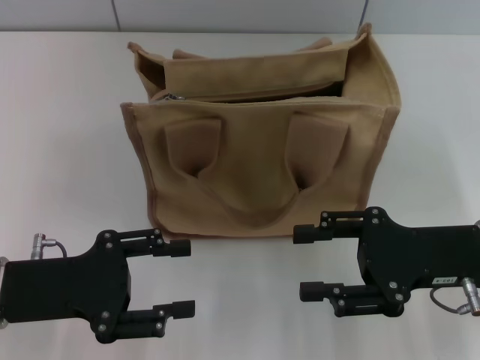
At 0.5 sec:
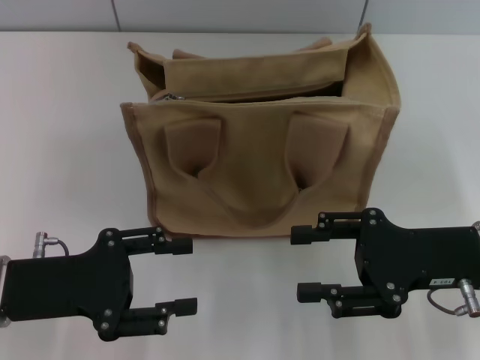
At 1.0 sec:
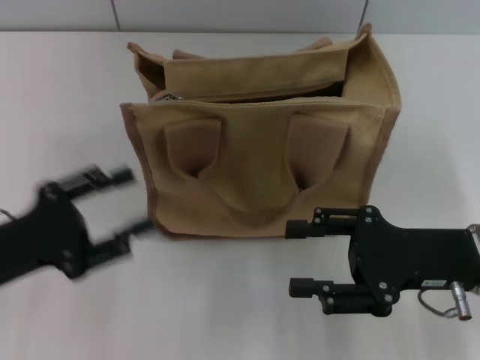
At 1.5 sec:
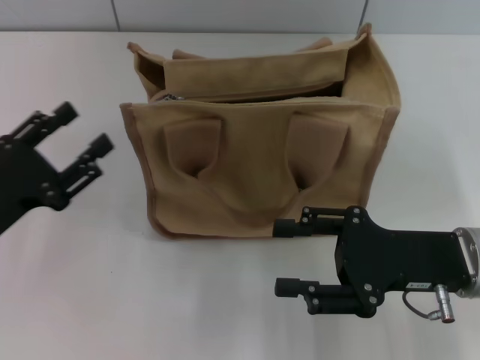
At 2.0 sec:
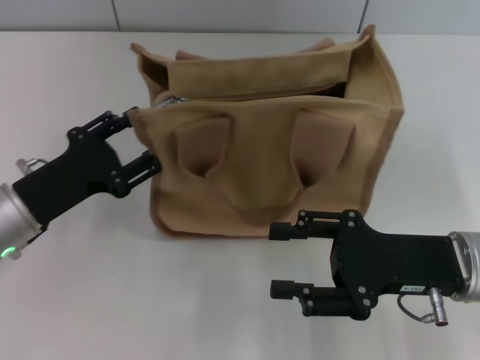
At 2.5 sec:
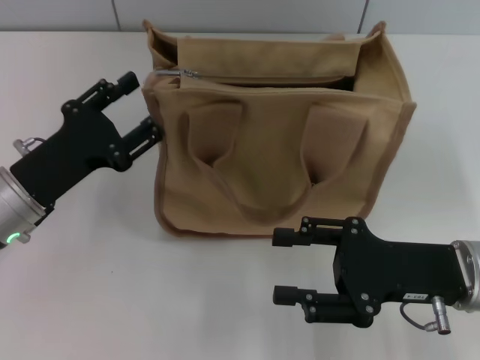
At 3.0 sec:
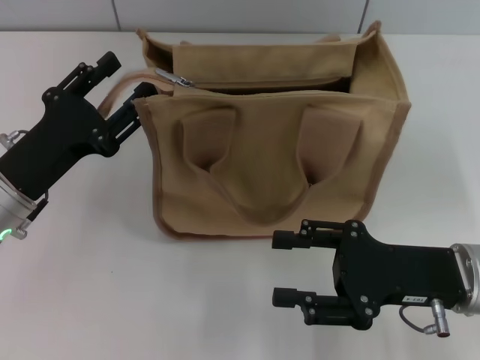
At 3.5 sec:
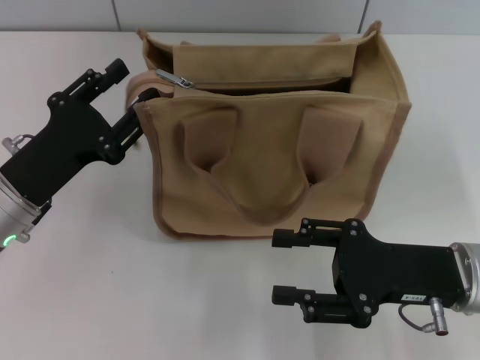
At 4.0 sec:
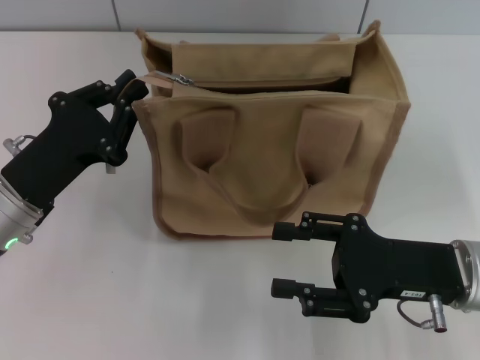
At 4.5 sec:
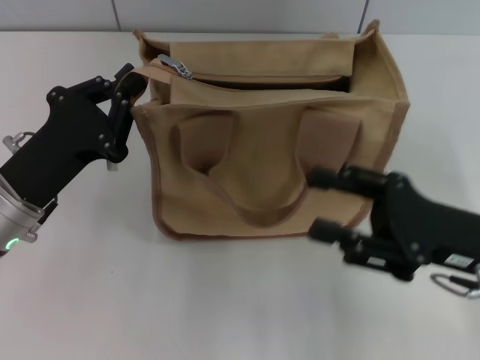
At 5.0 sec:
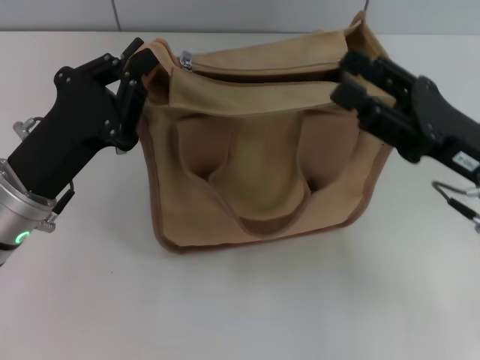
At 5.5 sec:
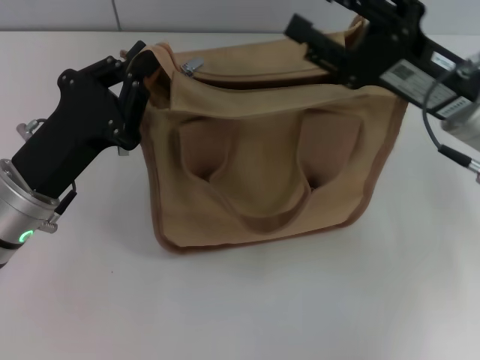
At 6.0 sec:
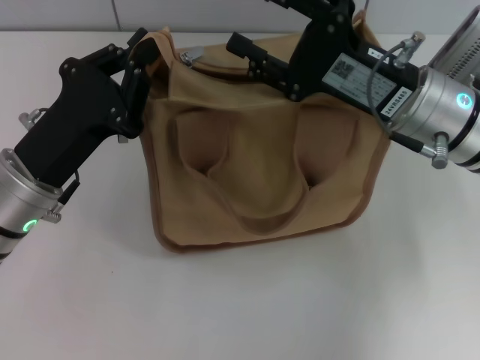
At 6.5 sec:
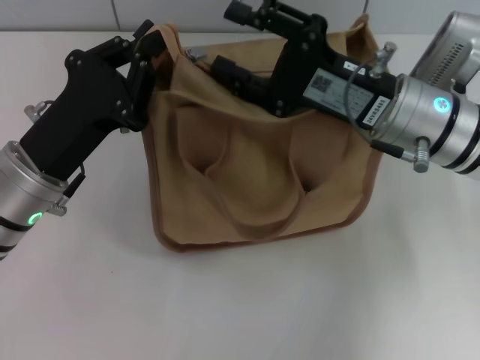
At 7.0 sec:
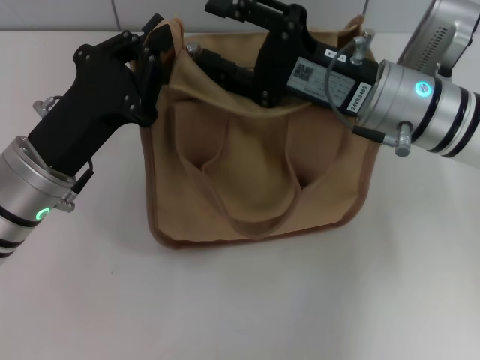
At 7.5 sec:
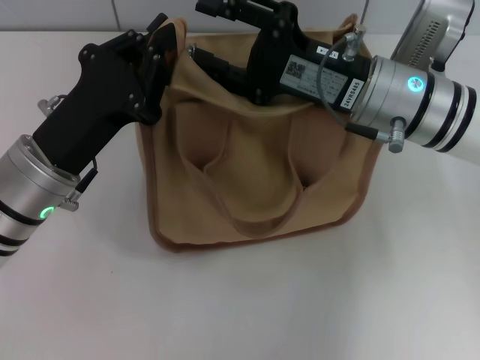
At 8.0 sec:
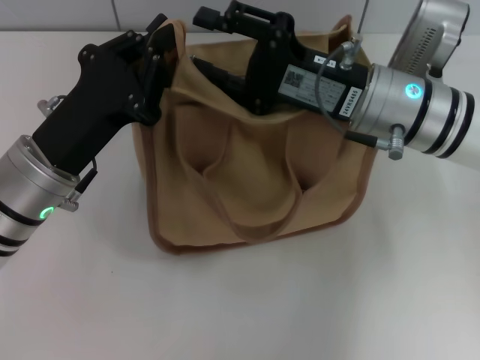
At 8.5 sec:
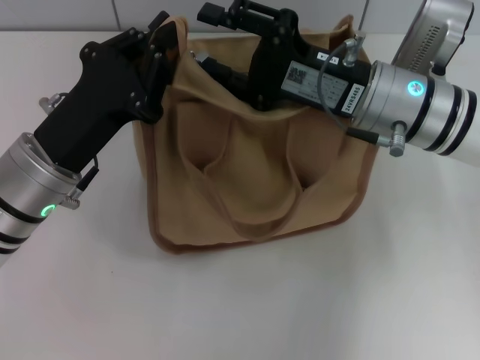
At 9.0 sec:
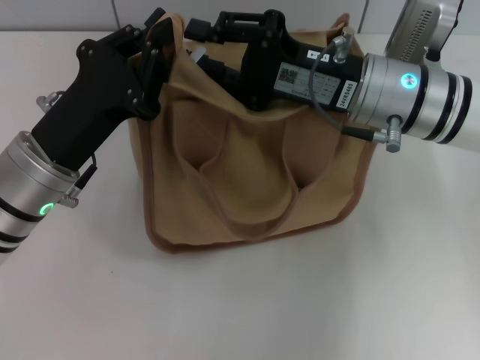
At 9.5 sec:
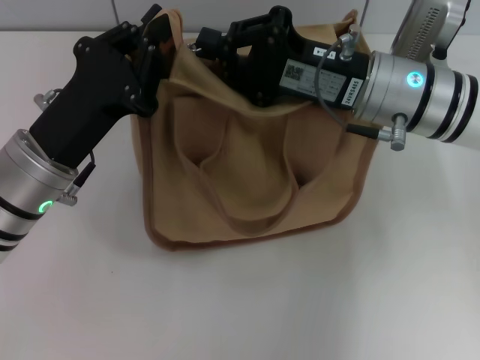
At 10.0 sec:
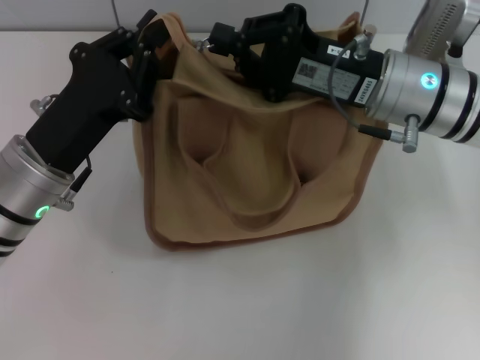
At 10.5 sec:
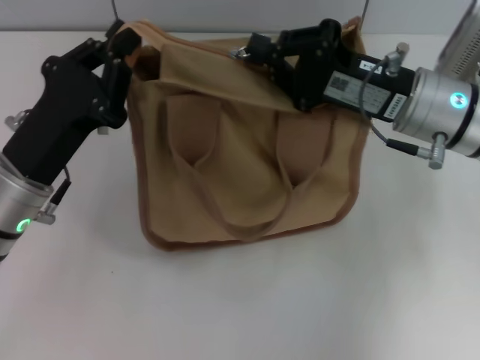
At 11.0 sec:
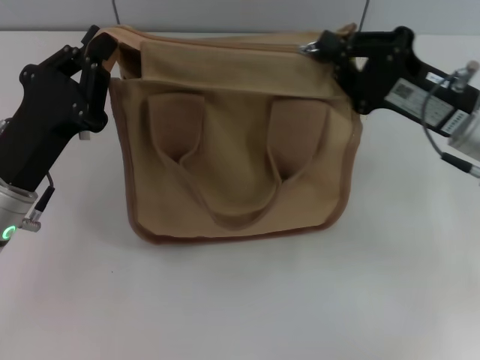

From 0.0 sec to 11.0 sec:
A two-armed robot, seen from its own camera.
From 0.0 sec to 2.0 sec: The left gripper is displaced forward by about 5 cm.
From 2.0 sec to 3.5 sec: The grippers make only small movements.
From 3.5 sec to 5.5 sec: The right gripper heads forward and upward, covering approximately 10 cm. Meanwhile the left gripper closes.
From 5.5 sec to 7.5 sec: The right gripper goes some 5 cm to the left.
From 7.5 sec to 9.0 sec: The grippers make only small movements.
From 9.0 sec to 11.0 sec: The right gripper is displaced to the right by about 10 cm, and closes its fingers.

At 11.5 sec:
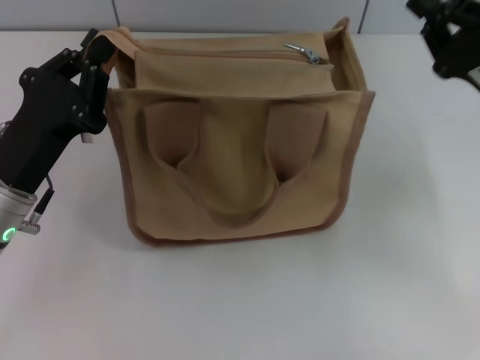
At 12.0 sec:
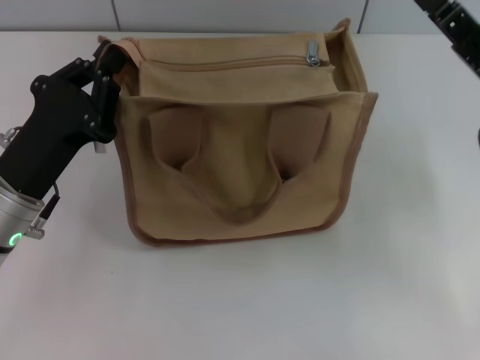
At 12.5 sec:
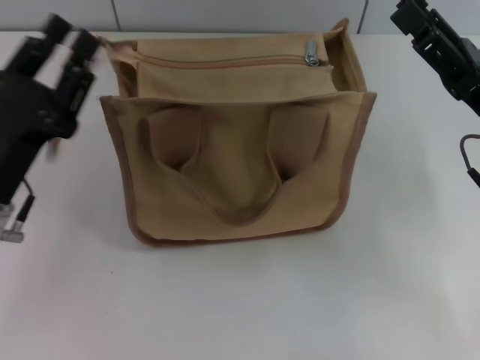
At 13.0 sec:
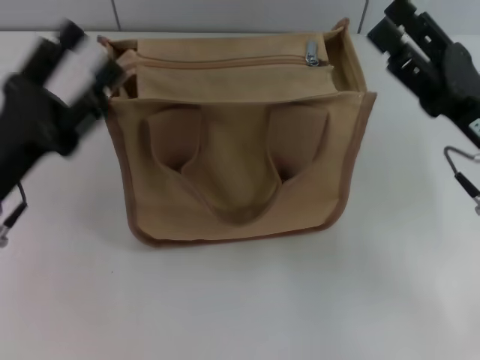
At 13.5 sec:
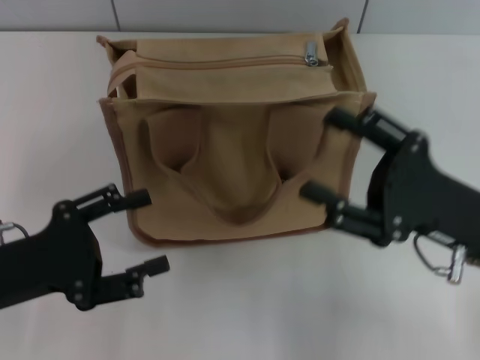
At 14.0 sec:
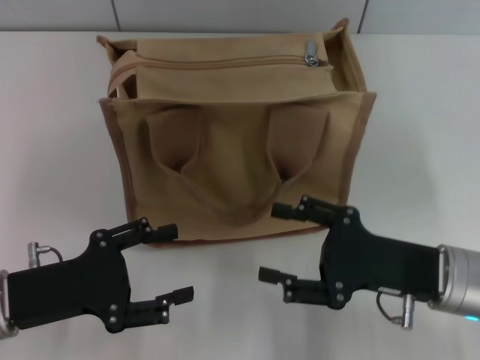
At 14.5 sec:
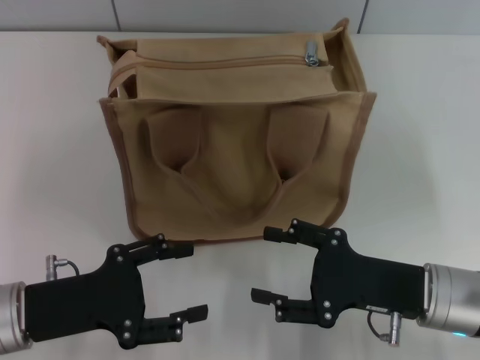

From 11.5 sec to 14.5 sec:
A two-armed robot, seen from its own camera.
Step, from 12.0 sec to 12.5 sec: Grab the zipper with your left hand.
From 11.5 sec to 13.0 sec: The left gripper opens its fingers, while the right gripper opens its fingers.
From 13.0 sec to 14.5 sec: The left gripper changes place by some 5 cm, while the right gripper moves downward and backward, roughly 10 cm.

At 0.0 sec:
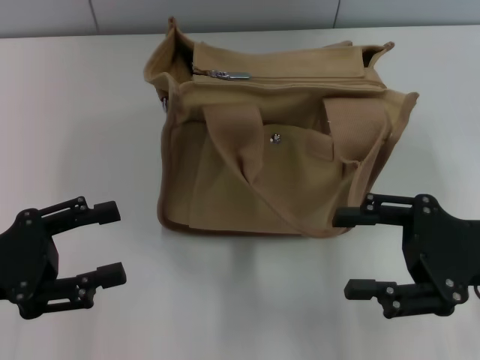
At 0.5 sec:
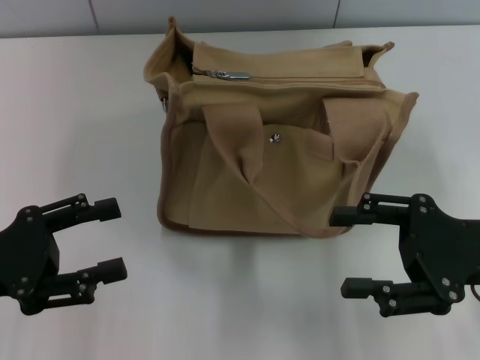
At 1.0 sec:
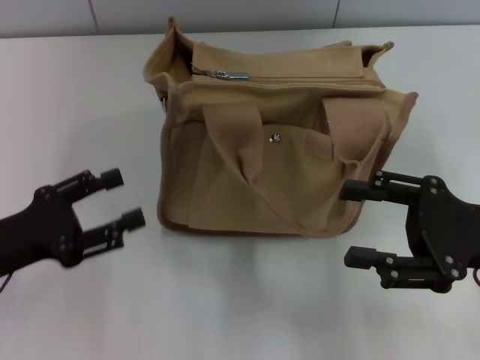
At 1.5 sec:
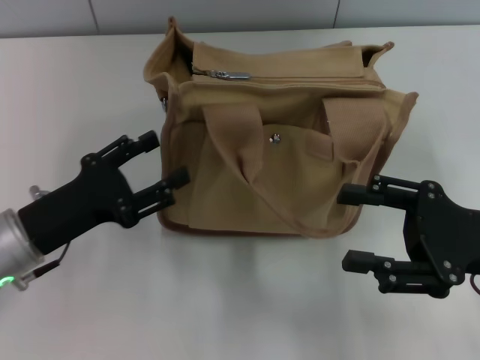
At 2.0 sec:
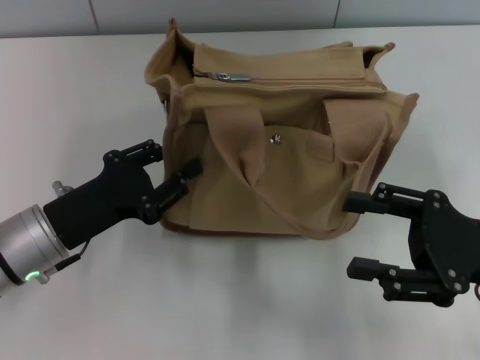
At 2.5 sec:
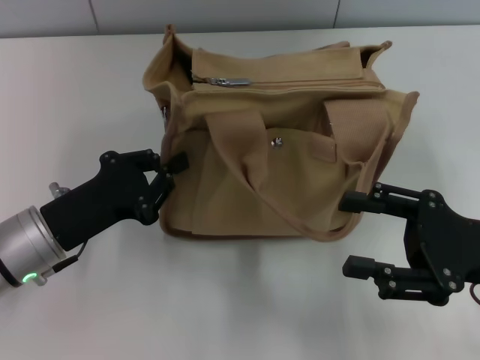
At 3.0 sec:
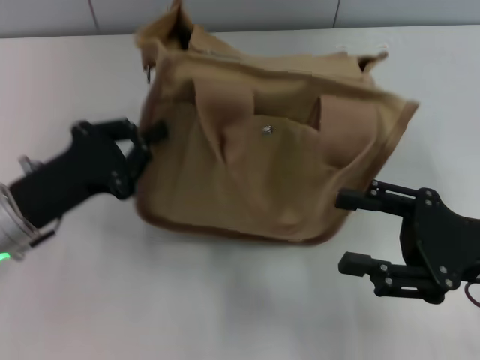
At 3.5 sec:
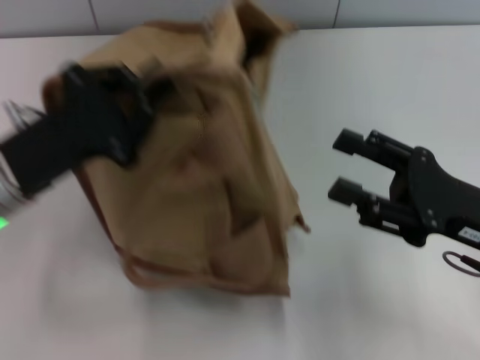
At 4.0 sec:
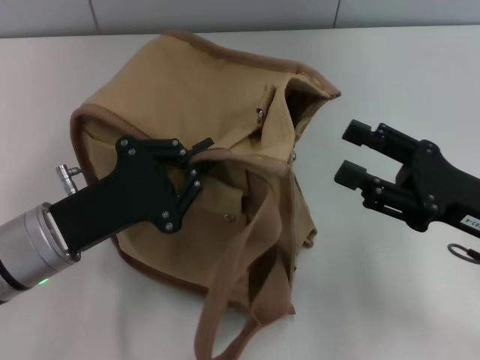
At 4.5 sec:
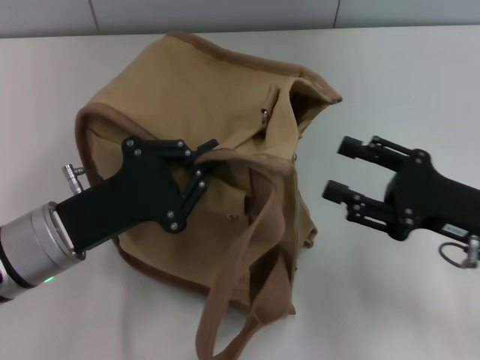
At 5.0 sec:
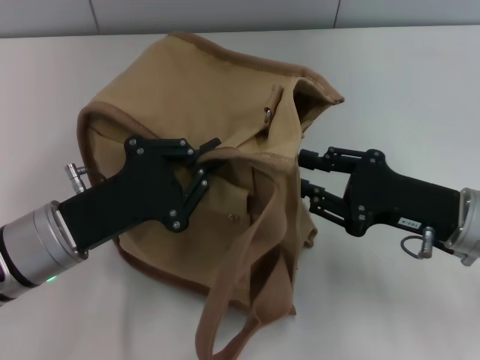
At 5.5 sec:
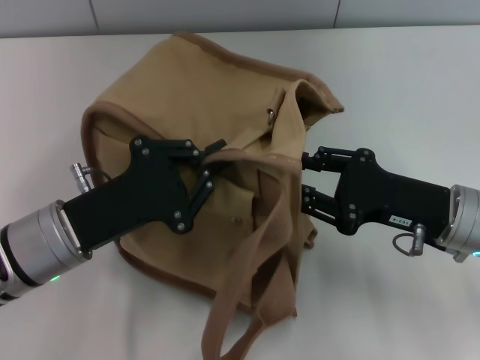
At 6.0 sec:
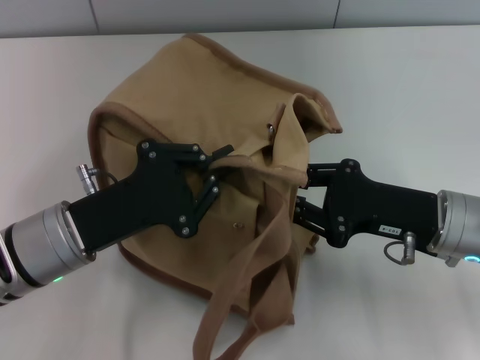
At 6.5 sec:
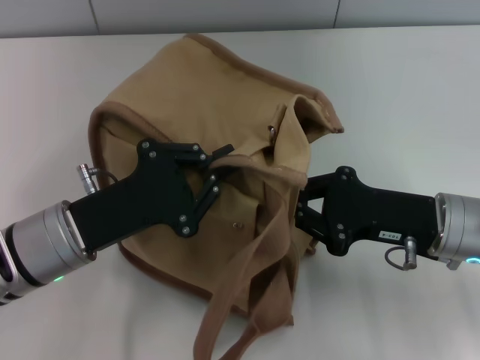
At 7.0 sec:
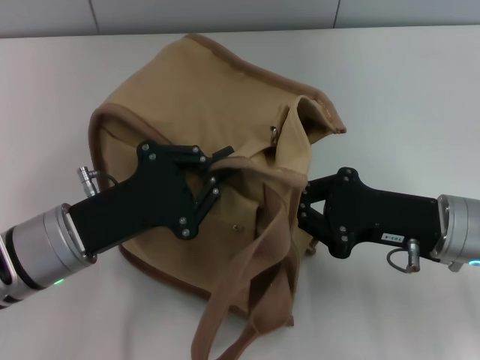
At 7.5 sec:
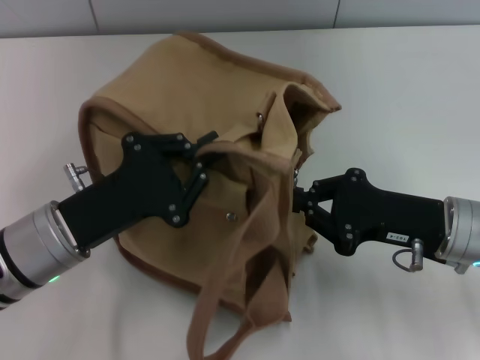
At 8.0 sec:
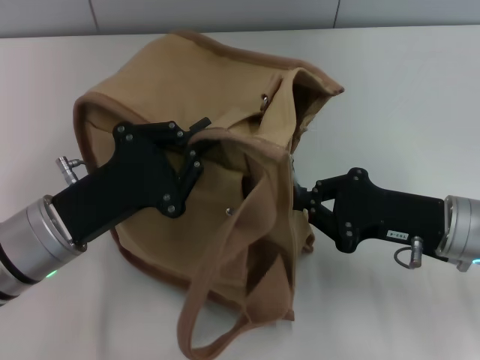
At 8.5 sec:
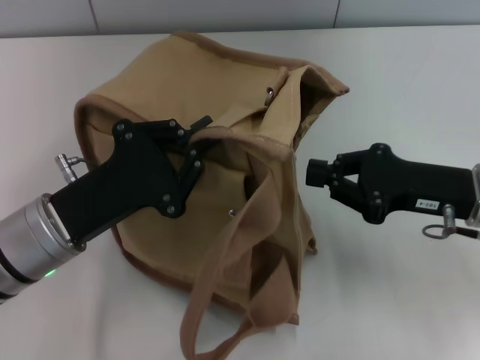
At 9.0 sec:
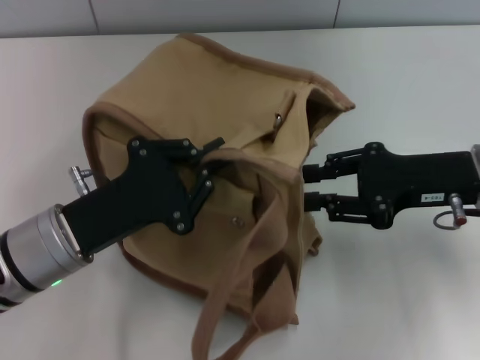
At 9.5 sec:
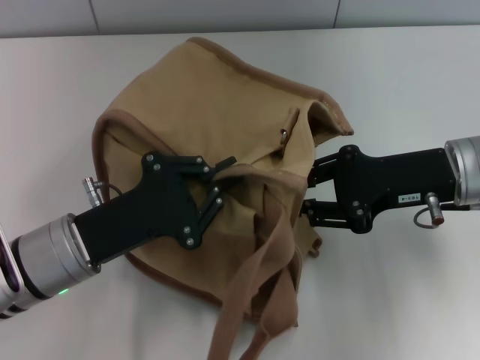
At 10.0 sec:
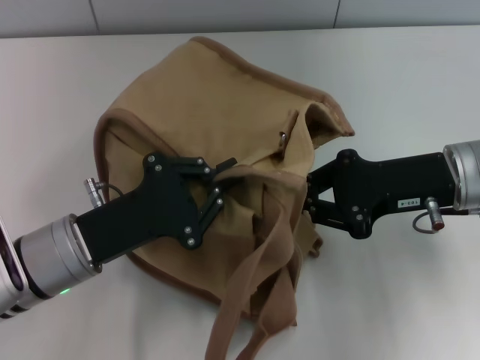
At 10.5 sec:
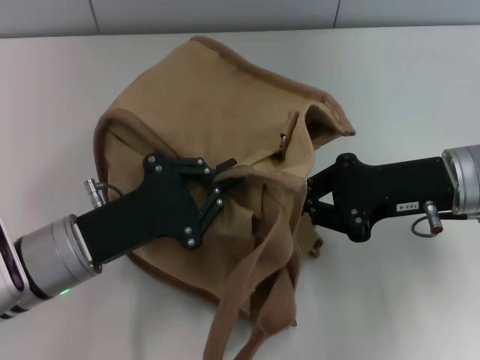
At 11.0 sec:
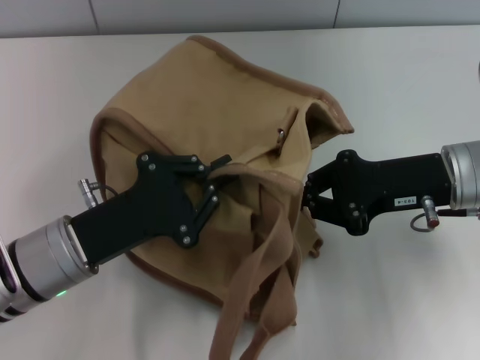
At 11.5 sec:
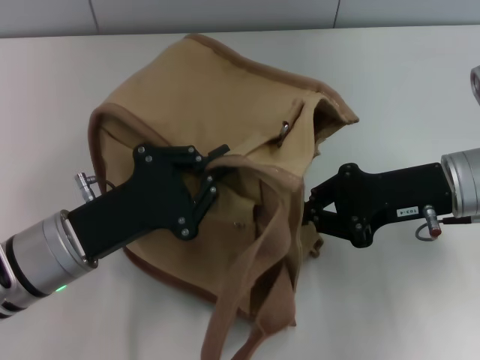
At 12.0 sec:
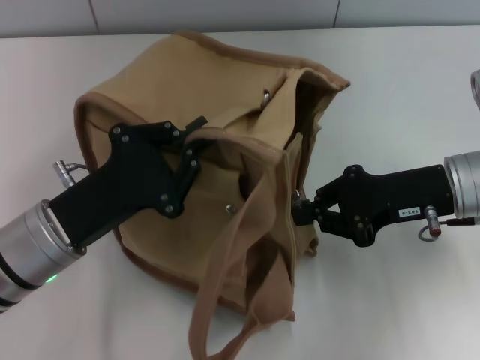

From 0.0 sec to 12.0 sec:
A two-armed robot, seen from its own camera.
From 0.0 sec to 2.0 sec: The left gripper goes some 10 cm to the right.
From 2.0 sec to 4.0 sec: The left gripper closes.
From 4.0 sec to 6.0 sec: The right gripper shifts by roughly 5 cm, and closes.
From 6.0 sec to 8.0 sec: The right gripper closes its fingers.
From 8.0 sec to 10.0 sec: The right gripper moves upward, some 5 cm, and opens and closes again.
